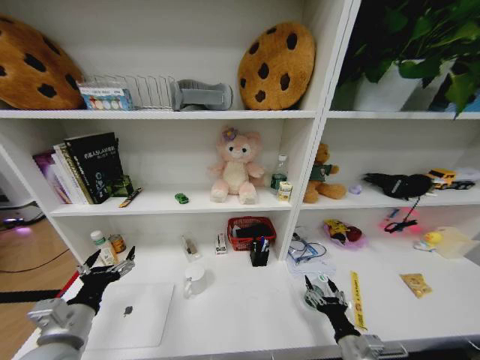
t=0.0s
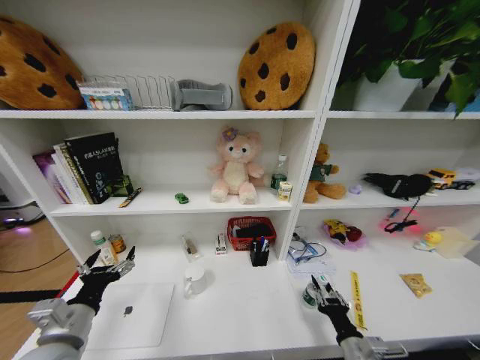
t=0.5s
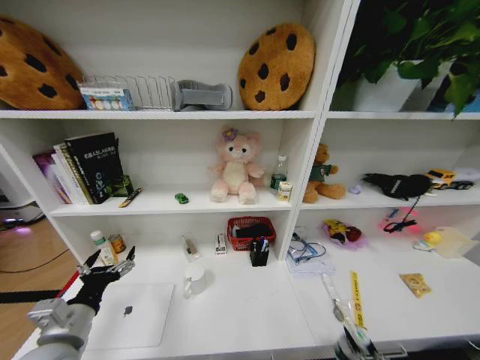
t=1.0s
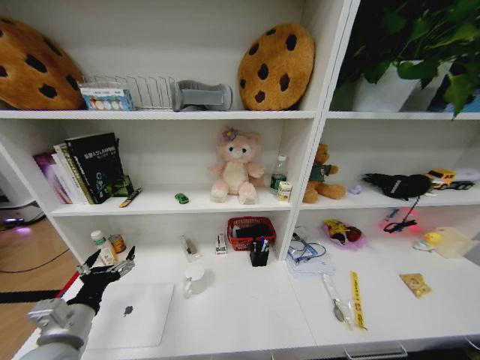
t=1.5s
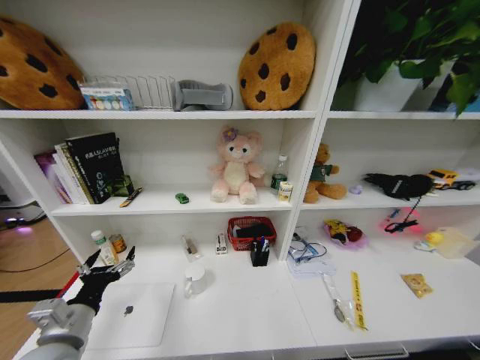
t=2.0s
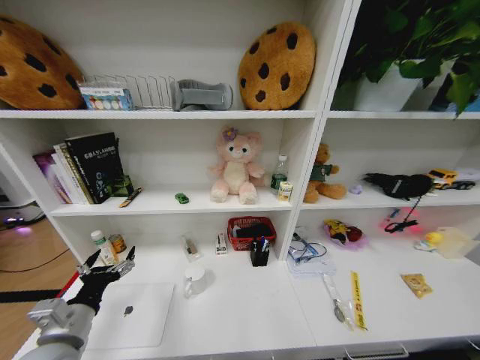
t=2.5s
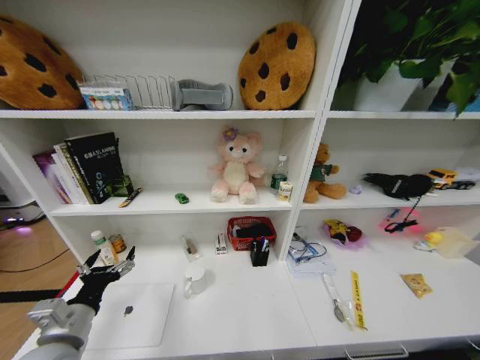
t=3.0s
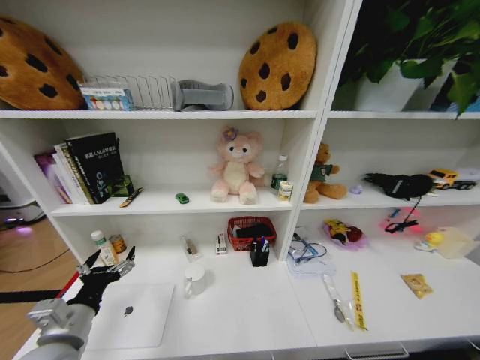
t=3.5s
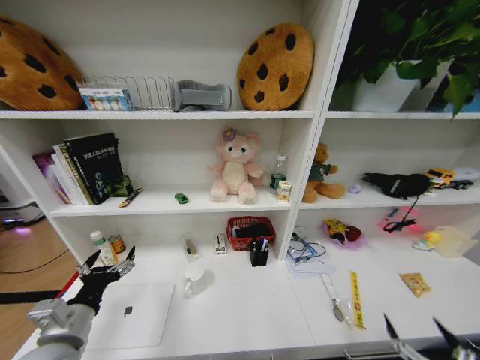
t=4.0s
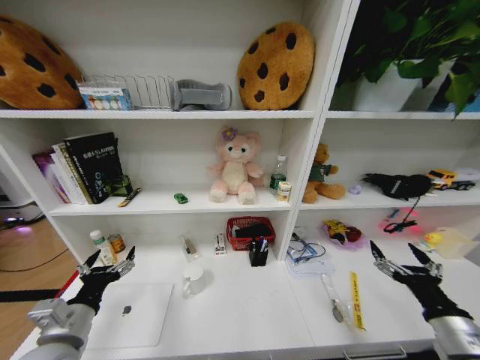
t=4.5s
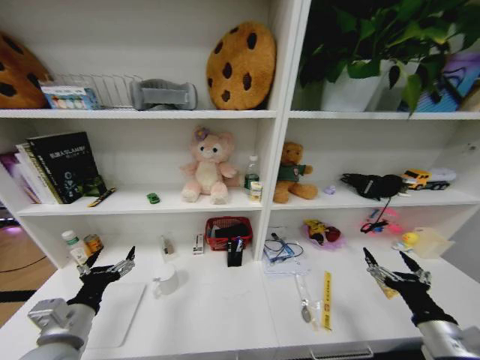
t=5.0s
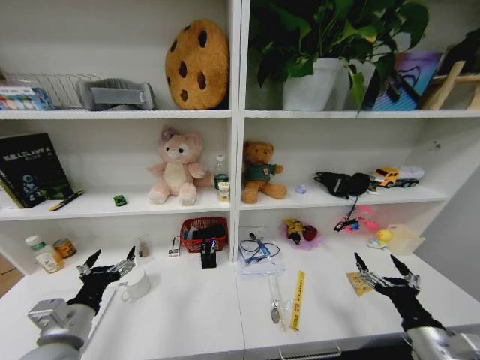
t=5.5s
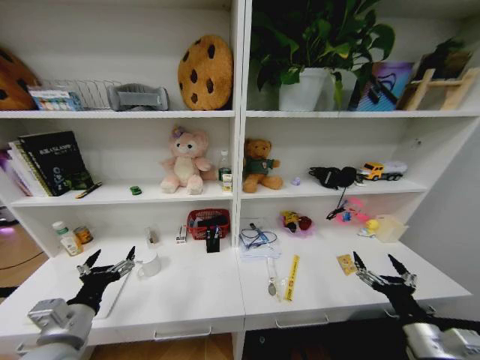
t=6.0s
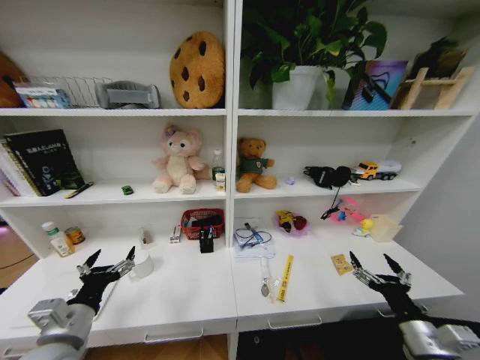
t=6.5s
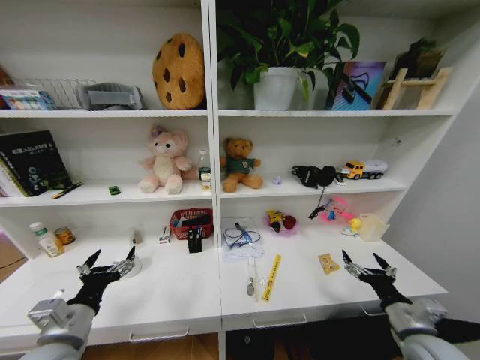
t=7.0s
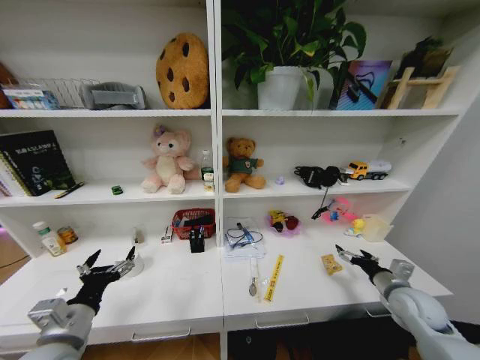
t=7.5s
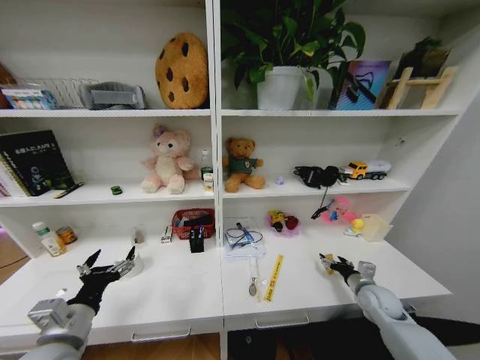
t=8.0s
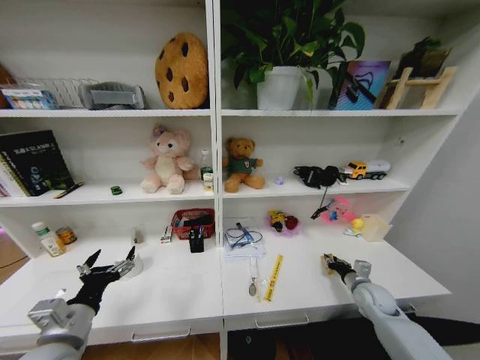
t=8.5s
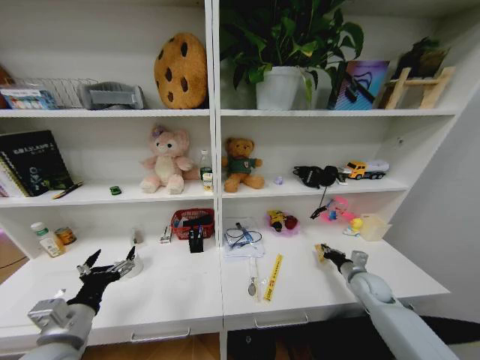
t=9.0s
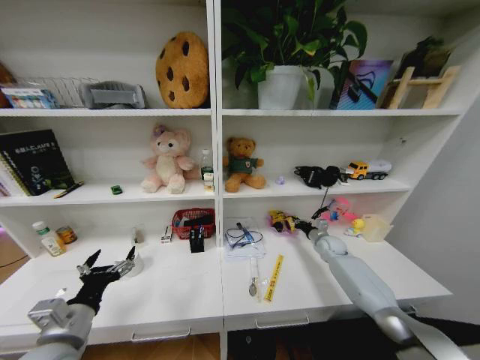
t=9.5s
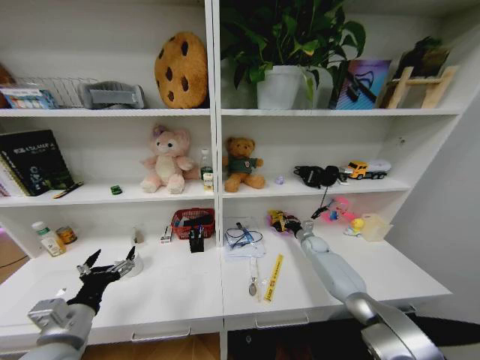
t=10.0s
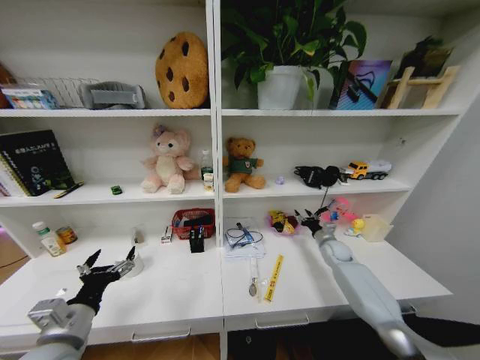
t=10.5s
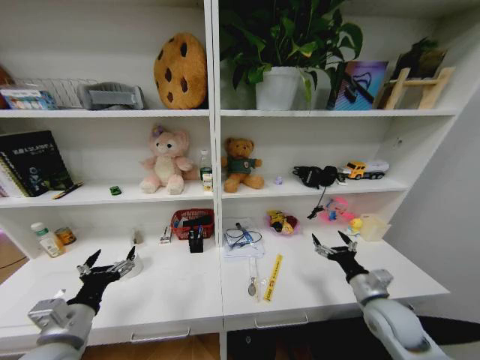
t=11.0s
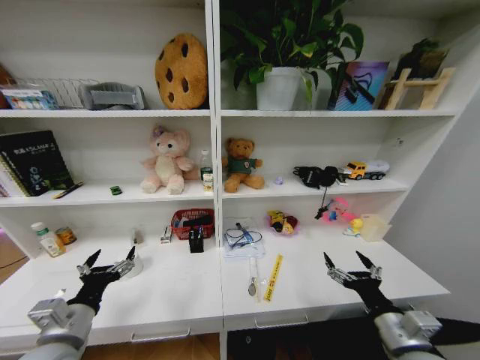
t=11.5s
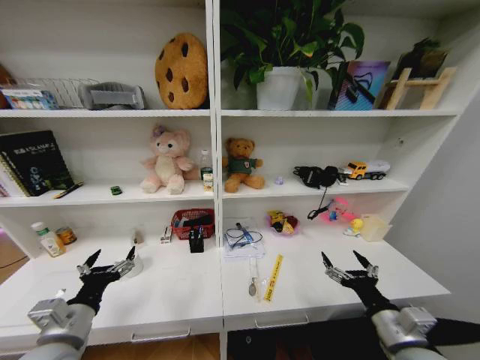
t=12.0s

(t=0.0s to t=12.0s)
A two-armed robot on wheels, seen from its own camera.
Task of the whole recording: Organize the objects on the table.
t=0.0s - t=2.0s: The right gripper is displaced backward and downward by some 30 cm, and closes.
t=2.0s - t=4.0s: The right gripper moves upward, roughly 20 cm, and opens up.
t=4.0s - t=6.0s: The right gripper travels forward and upward by some 15 cm.
t=6.0s - t=8.0s: The right gripper travels forward and downward by roughly 20 cm.
t=8.0s - t=10.0s: The right gripper shifts approximately 25 cm forward, and closes its fingers.
t=10.0s - t=12.0s: The right gripper heads backward, covering approximately 40 cm, and opens its fingers.
